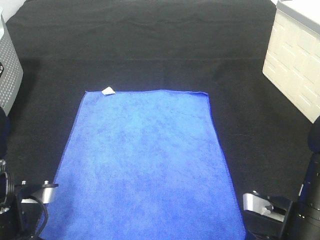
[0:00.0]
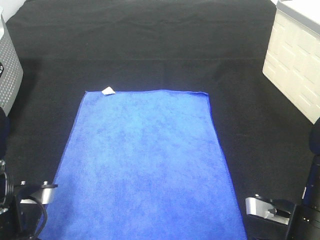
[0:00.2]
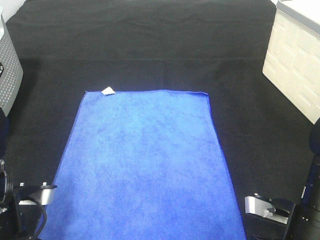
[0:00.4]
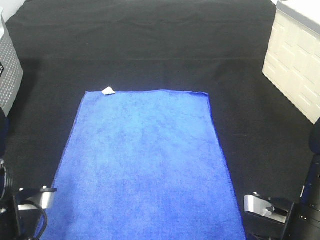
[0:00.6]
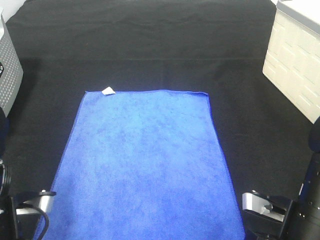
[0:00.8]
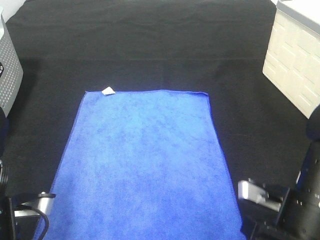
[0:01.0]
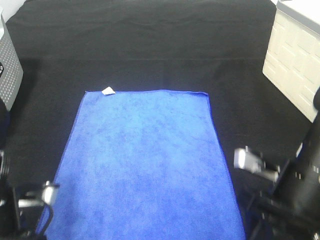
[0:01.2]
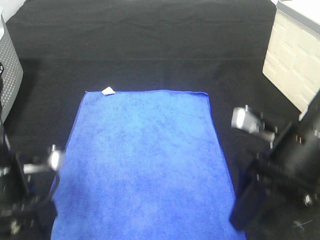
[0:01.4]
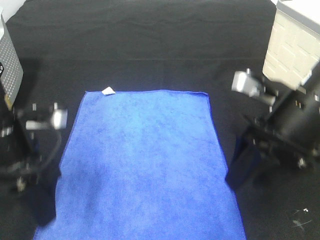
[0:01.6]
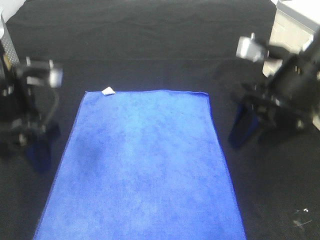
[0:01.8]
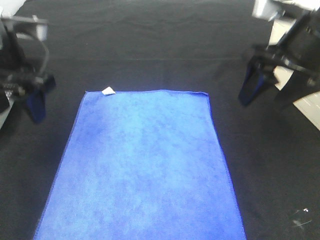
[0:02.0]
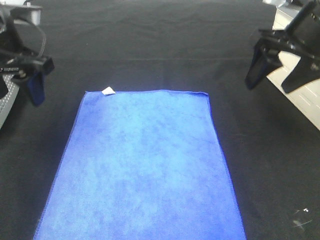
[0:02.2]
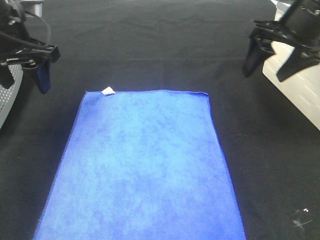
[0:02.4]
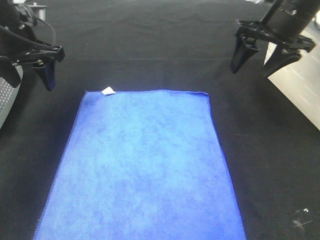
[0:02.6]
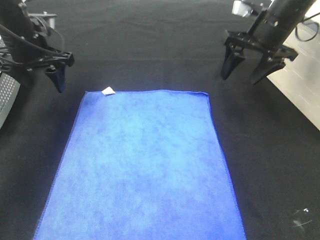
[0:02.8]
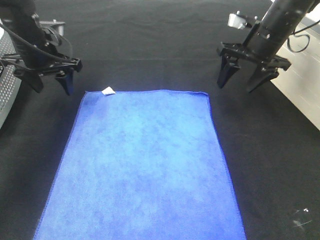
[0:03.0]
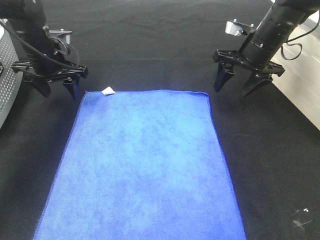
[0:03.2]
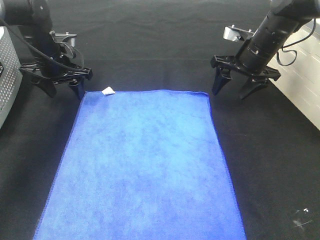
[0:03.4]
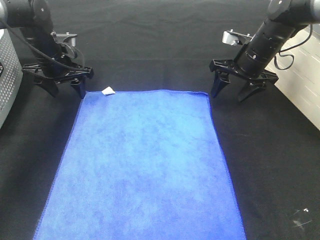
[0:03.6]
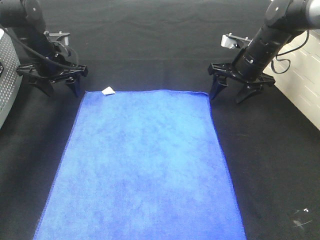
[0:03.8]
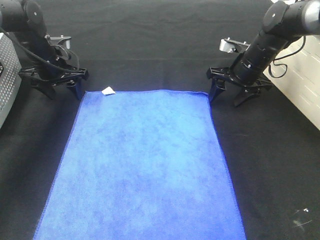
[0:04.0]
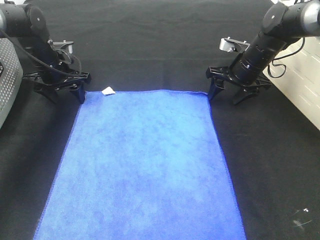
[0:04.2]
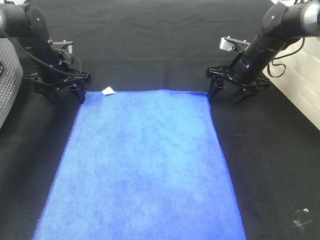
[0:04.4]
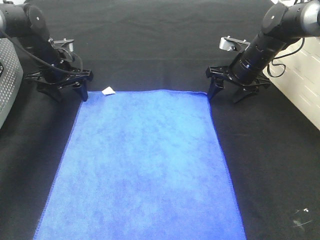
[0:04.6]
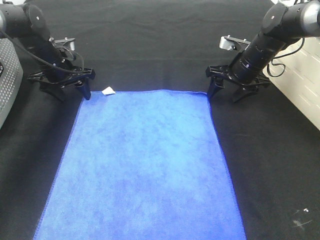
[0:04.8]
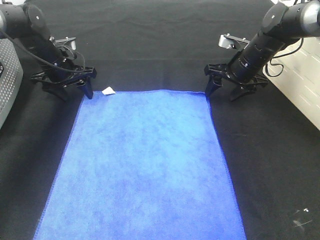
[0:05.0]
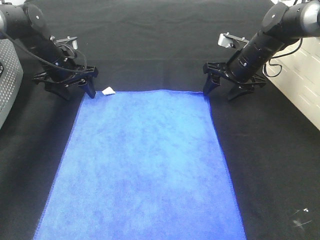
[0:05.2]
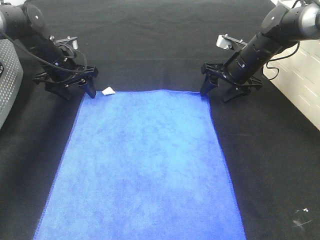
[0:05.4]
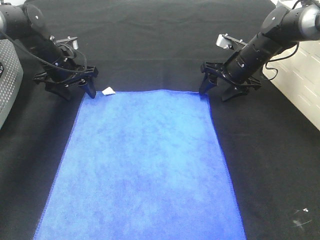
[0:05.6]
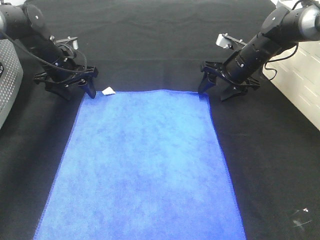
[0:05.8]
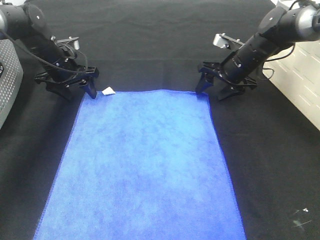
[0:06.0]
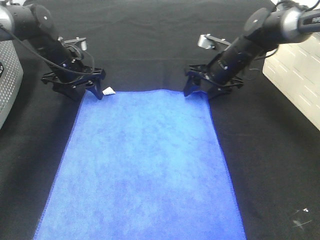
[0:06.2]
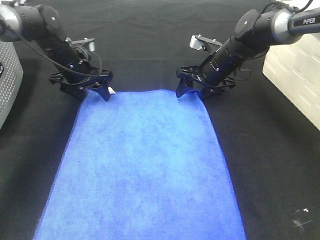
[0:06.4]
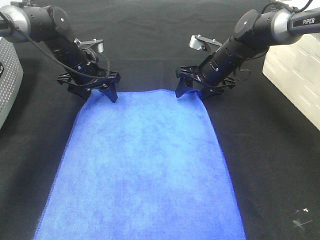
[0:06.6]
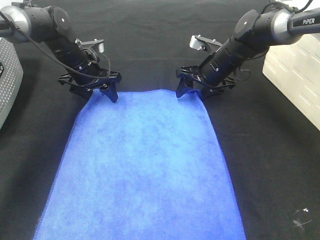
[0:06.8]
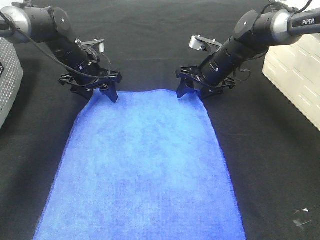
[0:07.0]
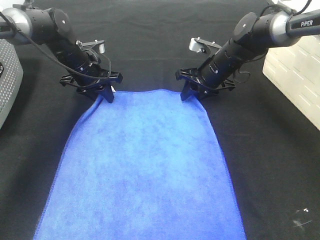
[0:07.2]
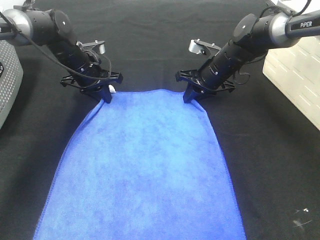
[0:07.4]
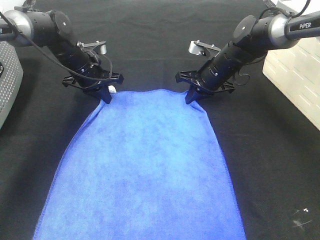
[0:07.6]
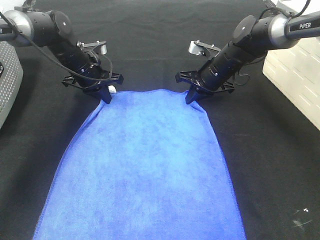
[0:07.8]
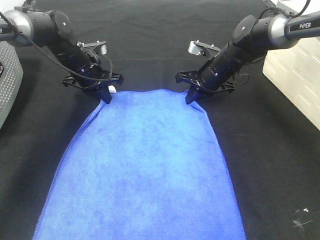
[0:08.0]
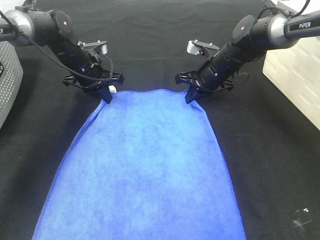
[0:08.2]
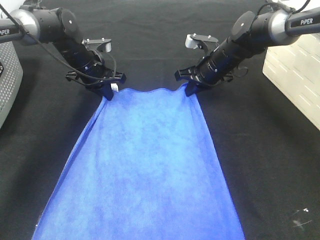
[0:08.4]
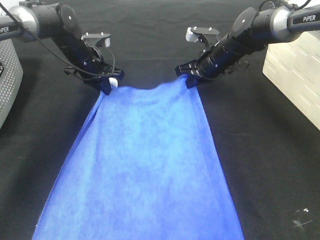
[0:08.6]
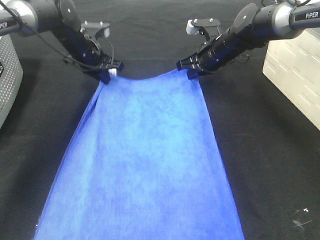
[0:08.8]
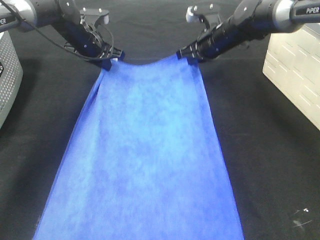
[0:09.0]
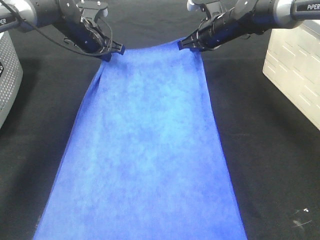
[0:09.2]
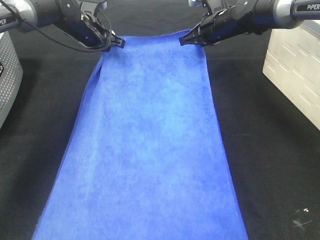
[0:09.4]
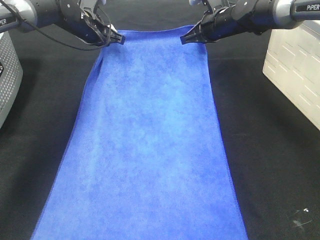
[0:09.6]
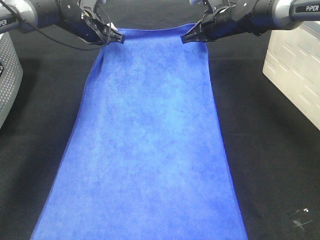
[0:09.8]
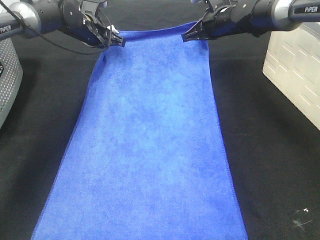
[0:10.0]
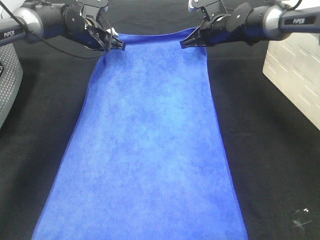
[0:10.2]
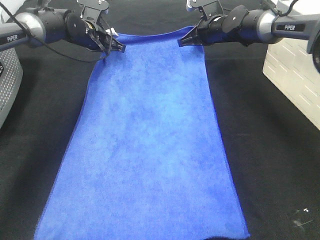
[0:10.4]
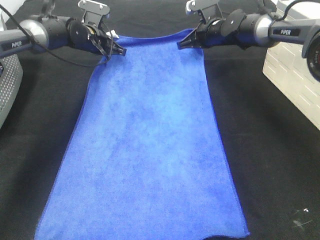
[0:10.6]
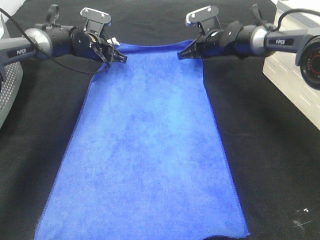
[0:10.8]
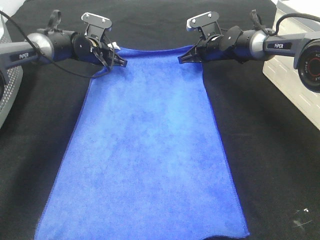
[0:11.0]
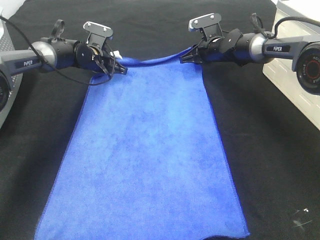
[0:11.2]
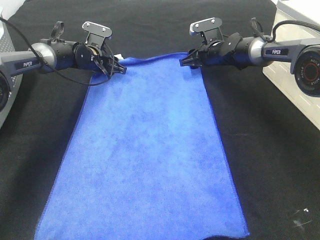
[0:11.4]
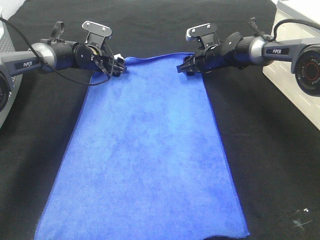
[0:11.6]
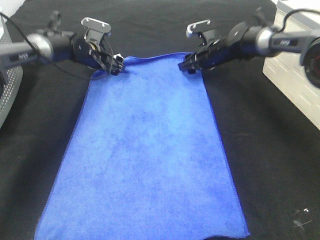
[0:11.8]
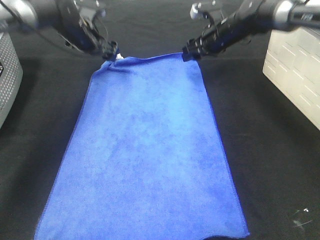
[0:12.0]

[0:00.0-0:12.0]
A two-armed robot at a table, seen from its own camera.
Task of the whole recording: Remove the towel and place it.
Step, 0:00.0 to 0:04.8: Left hand:adjust the blue towel.
Step, 0:00.0 to 0:04.8: Right hand:adjust the blue towel.
0:00.0 to 0:01.6: Both grippers move upward and forward, some 10 cm. The right gripper opens. The left gripper opens up.
0:01.6 to 0:03.0: Both grippers travel together forward, about 25 cm.
0:03.0 to 0:04.4: Both grippers move downward, about 5 cm.
0:04.4 to 0:06.0: The grippers stay close to where they were, moving slightly.
0:06.0 to 0:07.6: The left gripper goes roughly 5 cm to the right, and closes up. Meanwhile the right gripper ends up roughly 5 cm from where it was, and closes up.
0:07.6 to 0:09.0: Both grippers move upward, roughly 5 cm.
0:09.0 to 0:10.4: The right gripper ends up approximately 5 cm from where it was.
0:10.4 to 0:12.0: The right gripper reaches some 5 cm downward, then returns, and opens up; the left gripper goes downward and returns, about 5 cm each way, and opens its fingers.

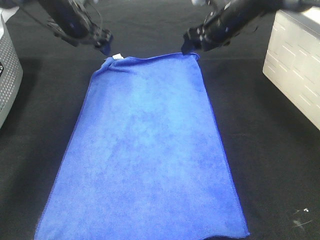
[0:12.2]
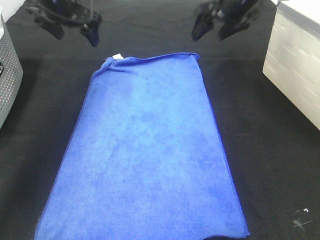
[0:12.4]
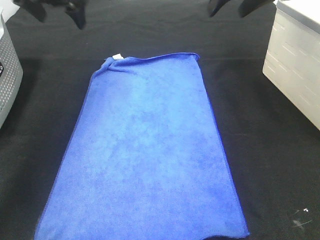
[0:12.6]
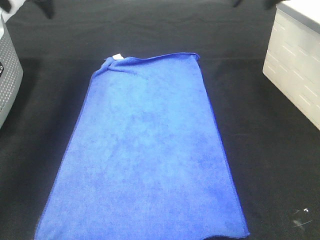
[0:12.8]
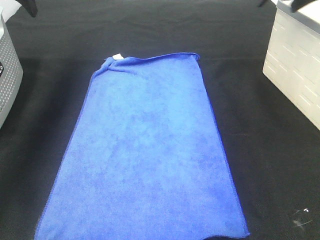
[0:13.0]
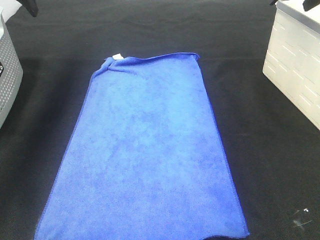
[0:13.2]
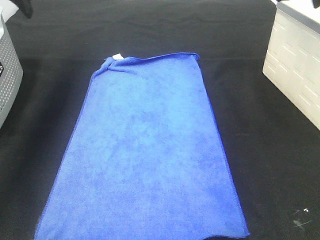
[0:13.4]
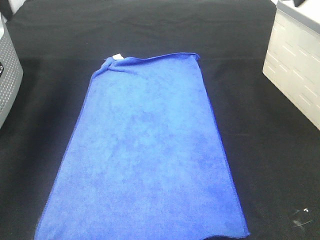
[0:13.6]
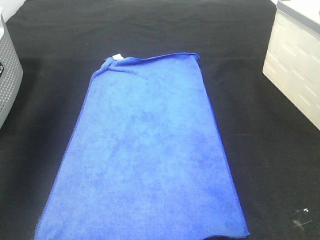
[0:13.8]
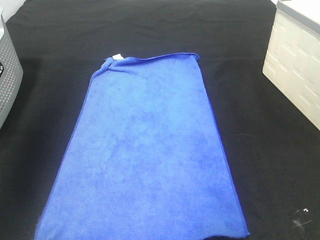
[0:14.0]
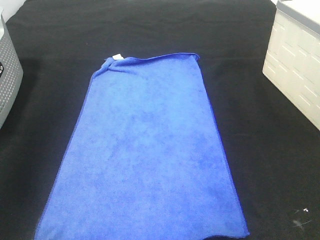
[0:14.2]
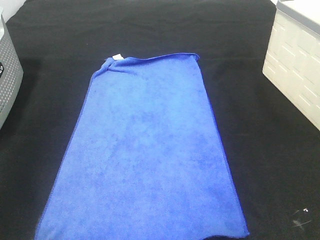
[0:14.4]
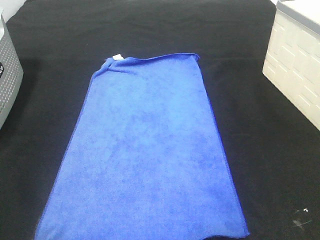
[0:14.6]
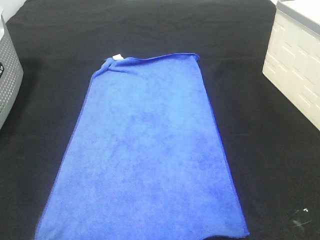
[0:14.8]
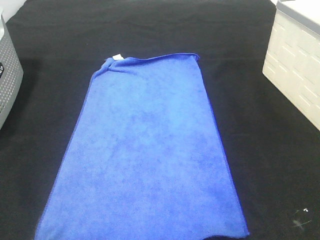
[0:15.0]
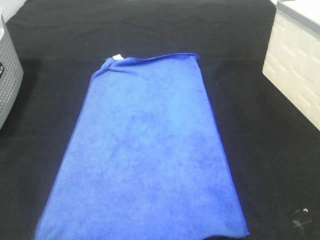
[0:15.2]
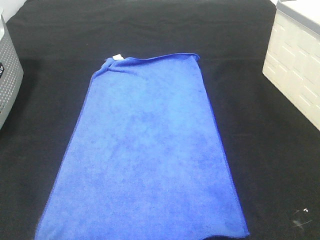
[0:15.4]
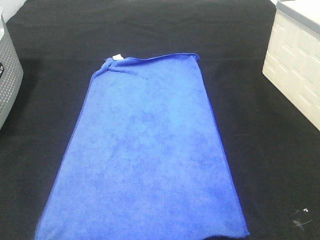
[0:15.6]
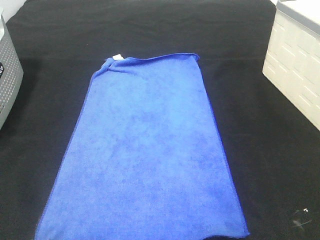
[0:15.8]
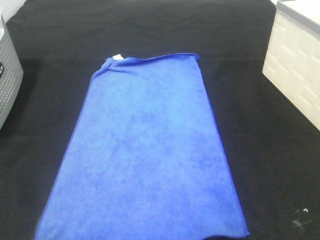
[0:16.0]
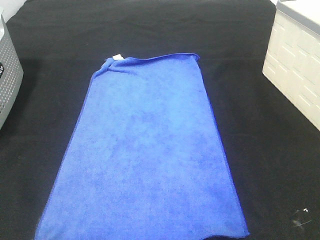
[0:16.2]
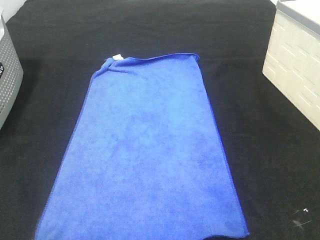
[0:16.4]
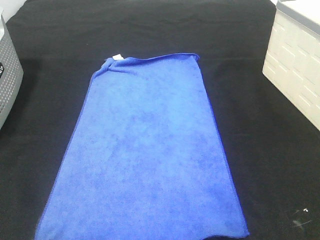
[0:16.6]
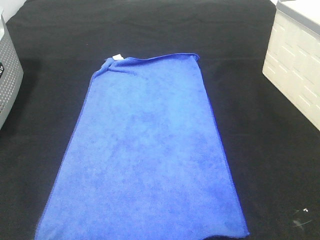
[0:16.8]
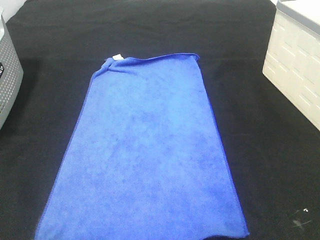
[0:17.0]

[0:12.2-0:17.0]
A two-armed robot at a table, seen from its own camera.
Task of the whole recording: Remove the towel and place it.
0:12.2 to 0:13.8: The right gripper goes roughly 35 cm backward, upward and to the right. The left gripper shifts about 30 cm backward, upward and to the left.
0:15.4 to 0:17.0: Both grippers stay put.

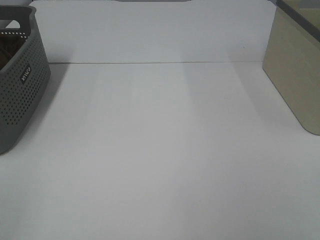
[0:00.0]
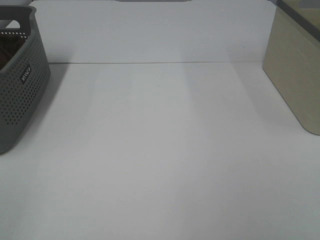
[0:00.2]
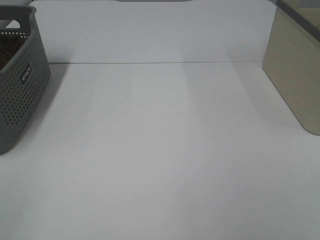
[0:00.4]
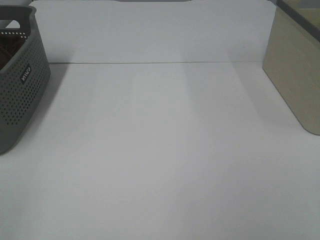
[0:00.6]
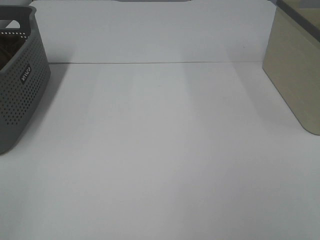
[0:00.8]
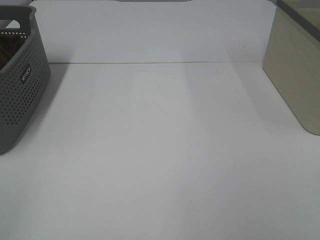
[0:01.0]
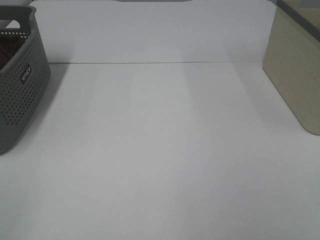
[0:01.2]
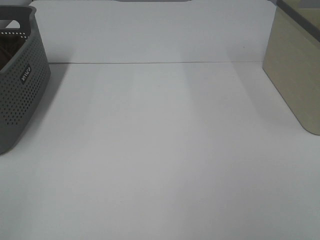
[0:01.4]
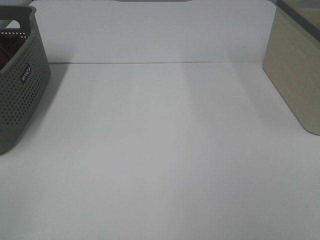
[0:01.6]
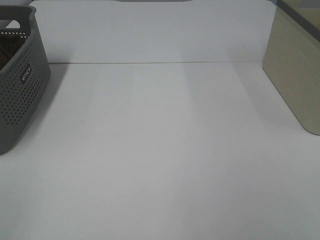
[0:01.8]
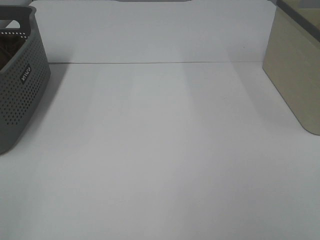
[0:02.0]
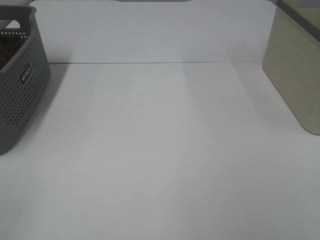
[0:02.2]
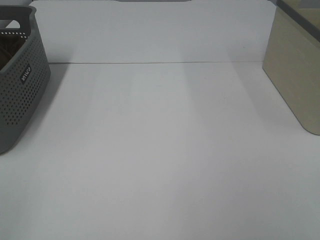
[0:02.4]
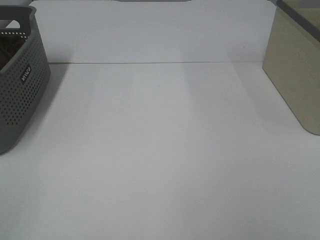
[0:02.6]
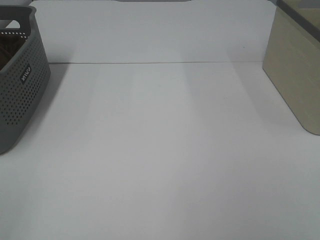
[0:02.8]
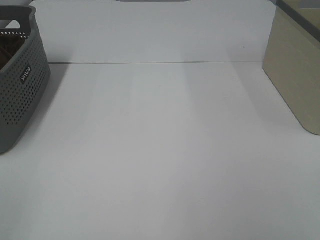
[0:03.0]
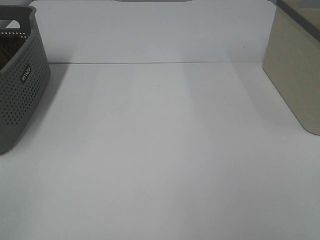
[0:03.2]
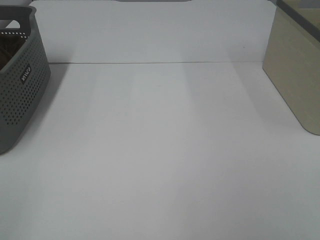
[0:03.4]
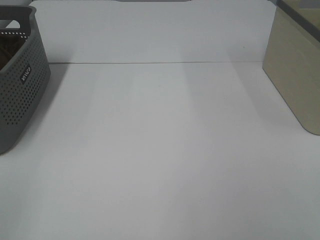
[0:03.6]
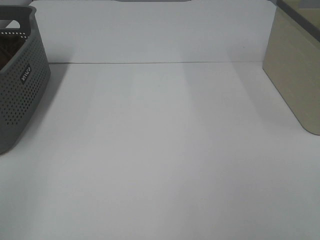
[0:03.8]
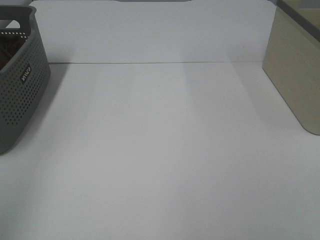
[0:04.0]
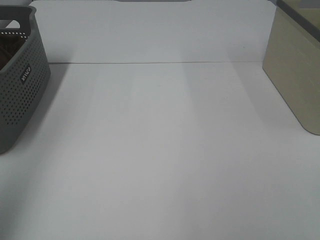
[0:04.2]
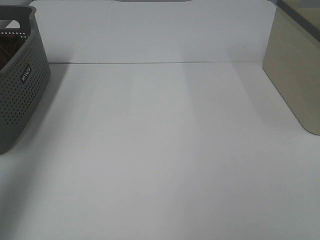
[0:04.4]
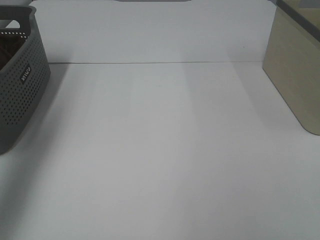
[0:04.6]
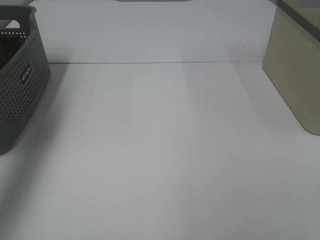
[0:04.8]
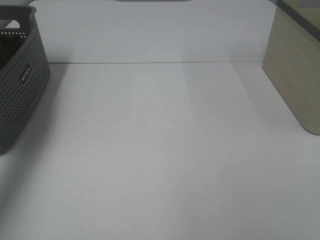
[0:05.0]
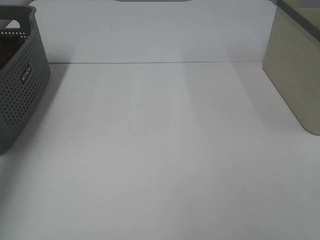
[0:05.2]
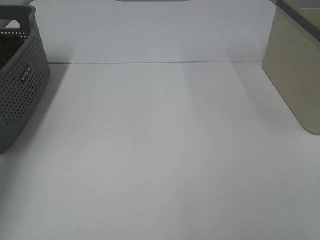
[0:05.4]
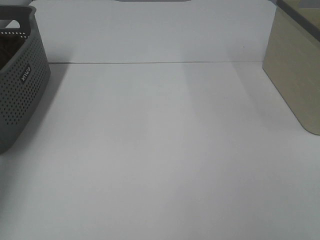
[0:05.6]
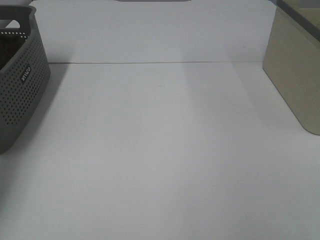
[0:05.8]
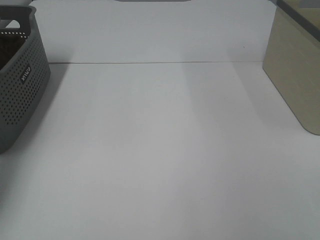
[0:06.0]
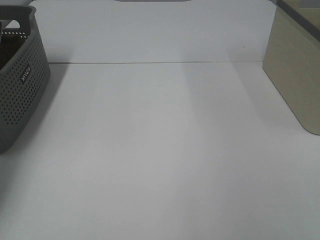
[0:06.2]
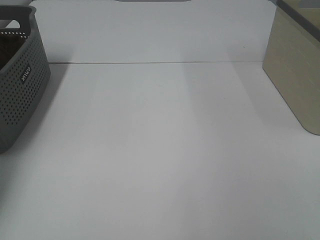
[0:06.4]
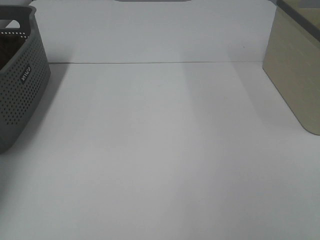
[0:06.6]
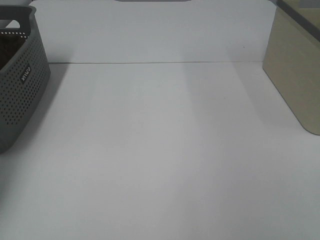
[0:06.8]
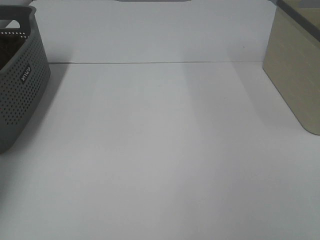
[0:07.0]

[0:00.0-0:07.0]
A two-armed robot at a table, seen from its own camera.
Task of the whole recording: Remove the towel and place it.
0:00.0 to 0:02.8: Both grippers stay about where they are.
0:02.8 to 0:04.2: The left gripper is displaced upward and forward by some 20 cm.
0:04.2 to 0:05.6: The left gripper heads forward and downward, covering some 35 cm.
